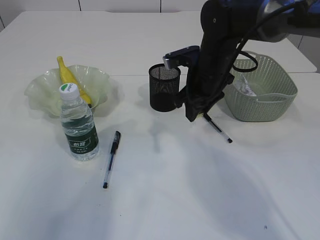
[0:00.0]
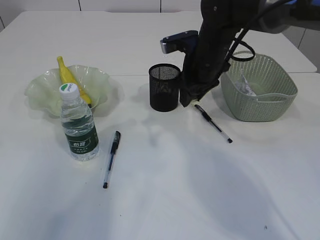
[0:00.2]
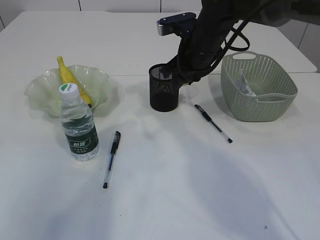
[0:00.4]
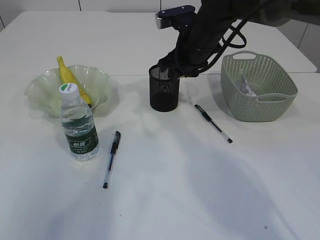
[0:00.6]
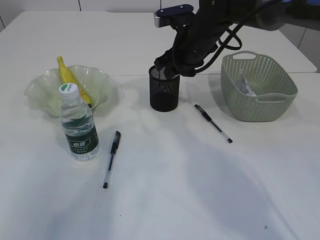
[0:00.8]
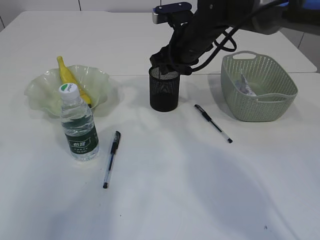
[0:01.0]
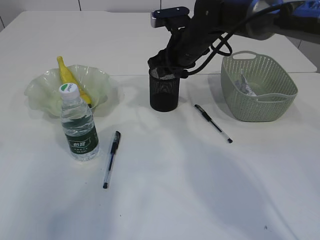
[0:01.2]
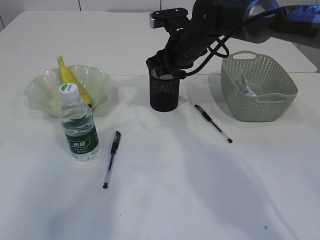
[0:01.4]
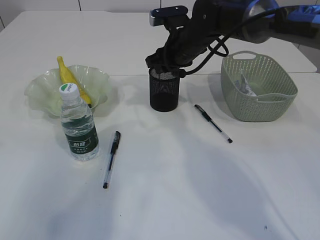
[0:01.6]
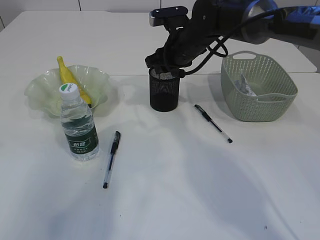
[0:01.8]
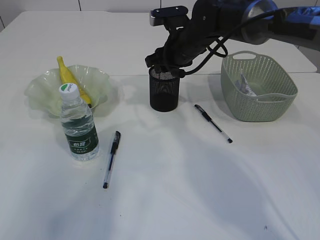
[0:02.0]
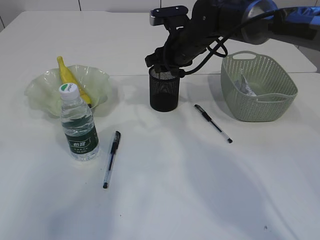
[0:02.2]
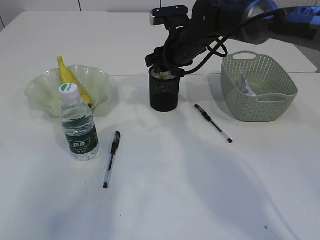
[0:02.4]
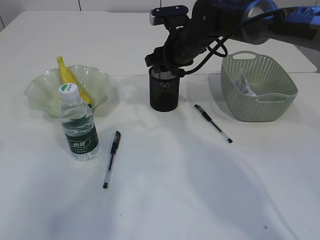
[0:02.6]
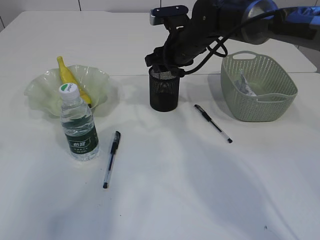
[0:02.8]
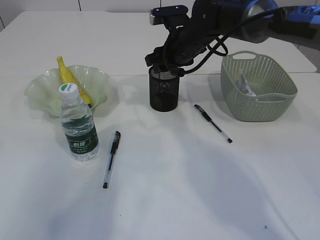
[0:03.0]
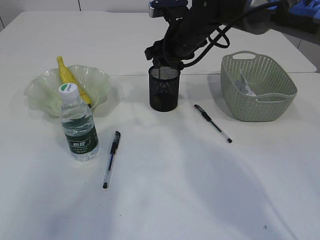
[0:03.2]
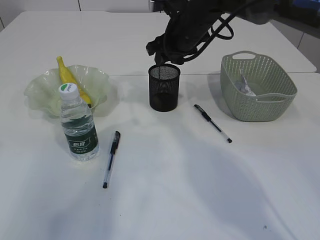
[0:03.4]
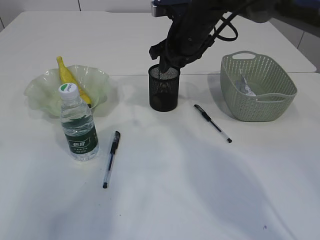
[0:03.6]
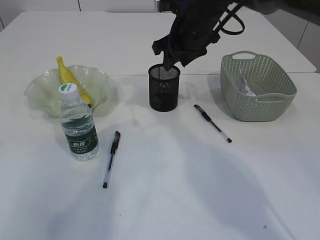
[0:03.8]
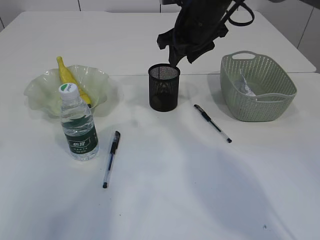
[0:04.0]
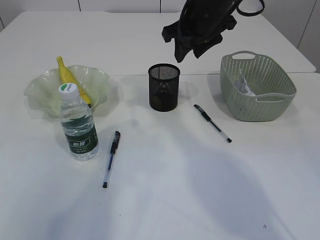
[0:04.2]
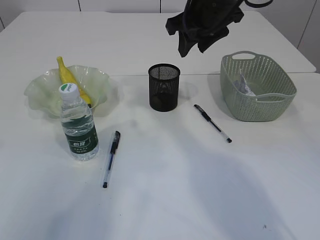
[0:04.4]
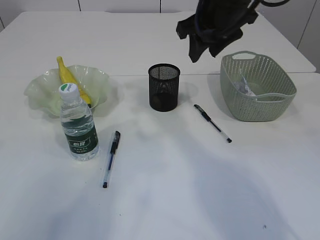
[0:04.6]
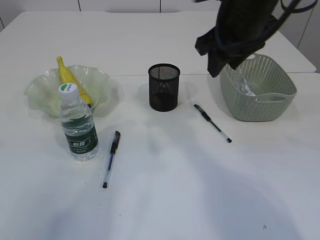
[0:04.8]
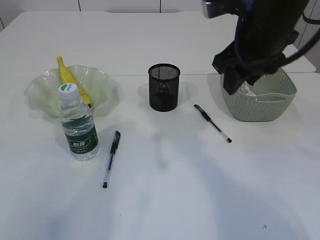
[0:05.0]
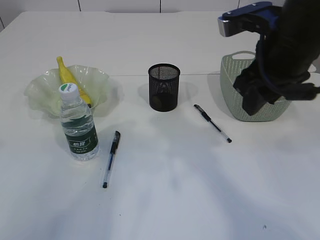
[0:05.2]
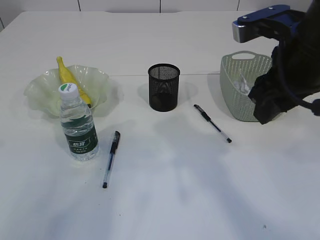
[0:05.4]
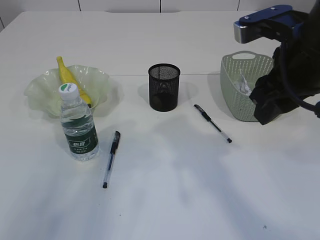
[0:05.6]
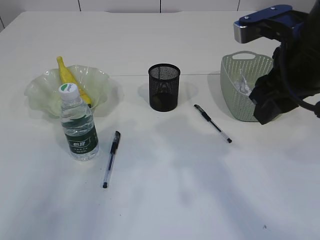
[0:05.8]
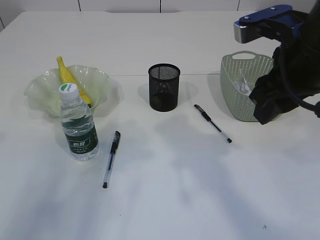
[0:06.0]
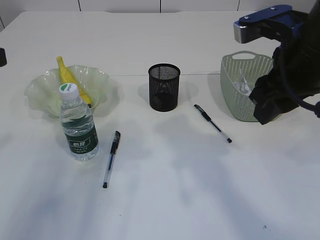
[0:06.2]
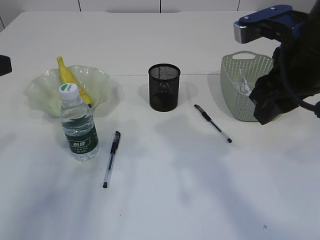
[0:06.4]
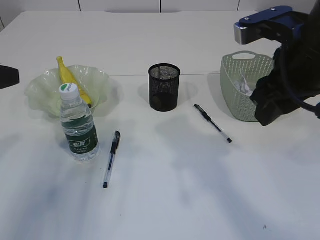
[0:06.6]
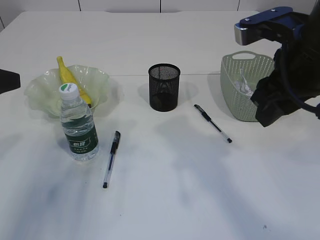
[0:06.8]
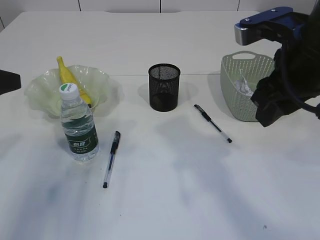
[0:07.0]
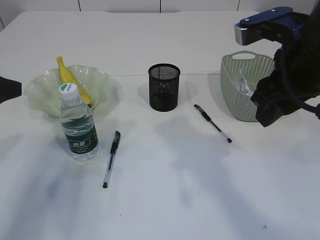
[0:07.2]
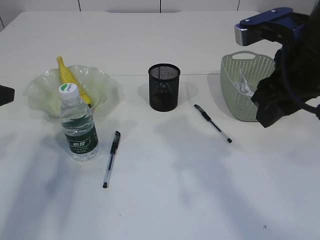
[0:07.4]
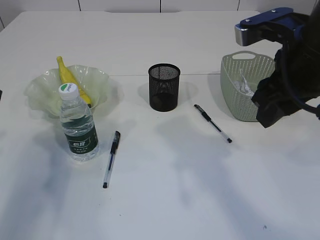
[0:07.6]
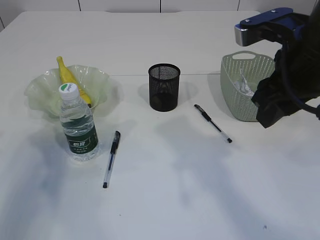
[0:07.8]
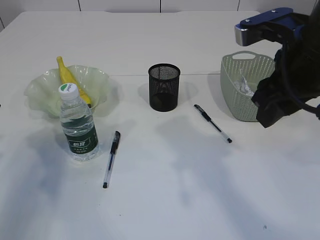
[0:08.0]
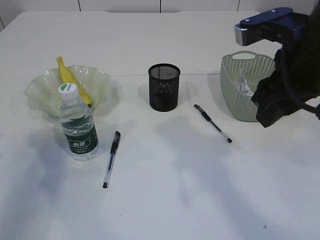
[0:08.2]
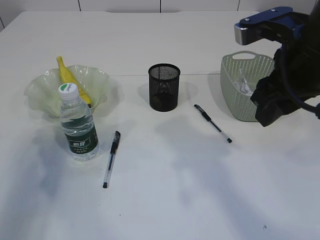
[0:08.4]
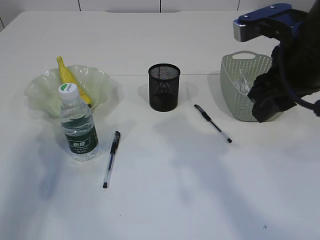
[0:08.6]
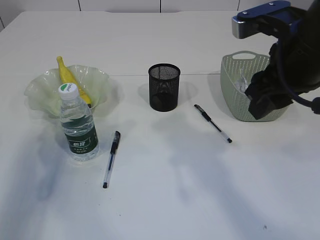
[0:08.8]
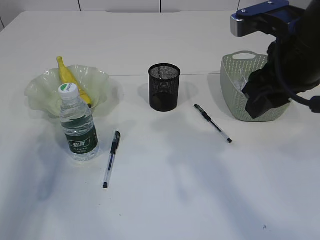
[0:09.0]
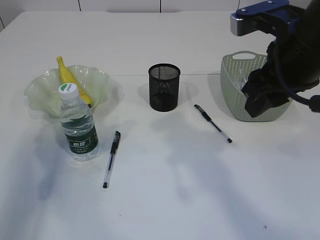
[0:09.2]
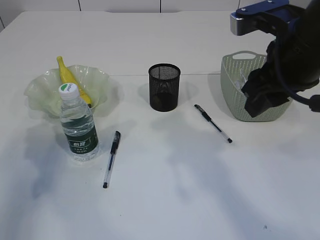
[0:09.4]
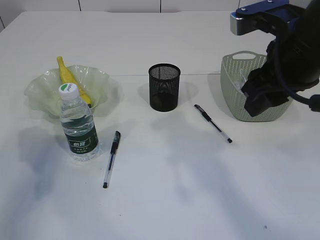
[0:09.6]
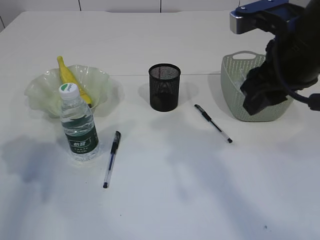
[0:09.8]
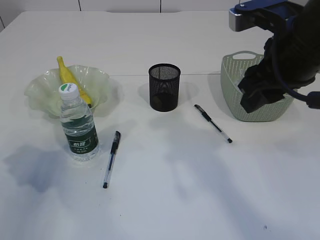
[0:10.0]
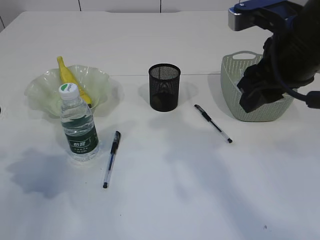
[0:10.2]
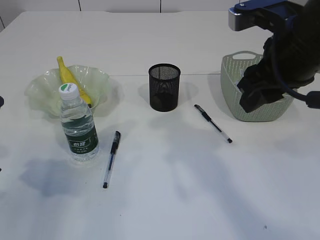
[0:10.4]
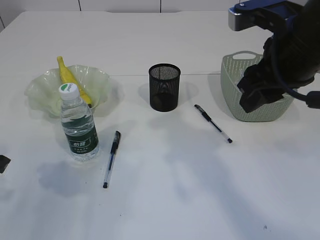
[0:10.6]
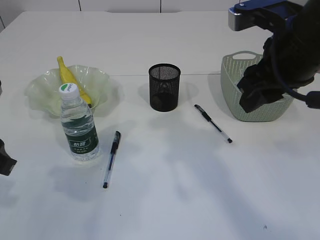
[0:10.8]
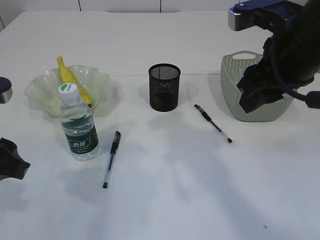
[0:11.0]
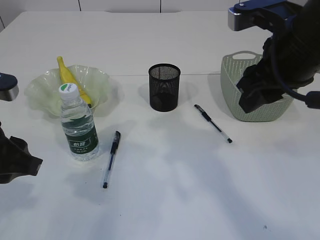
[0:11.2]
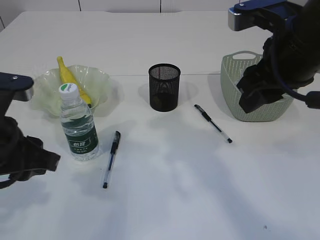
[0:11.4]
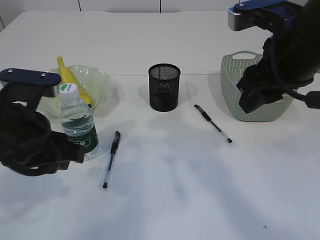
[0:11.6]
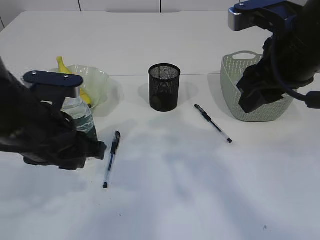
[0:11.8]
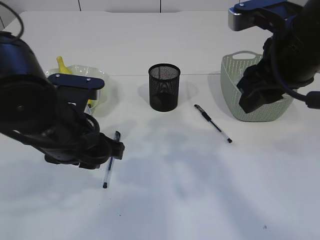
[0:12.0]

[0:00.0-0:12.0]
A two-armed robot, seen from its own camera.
Step, 0:00.0 to 0:04.0: Place the eraser into the pen holder.
0:00.0 to 0:01.6: The right gripper is displaced forward by approximately 5 cm.
0:01.6 to 0:03.0: The two grippers keep their place.
0:03.0 to 0:04.4: The right gripper heads upward and backward, covering about 10 cm.
0:04.4 to 0:06.0: The right gripper travels backward and to the right by approximately 15 cm.
0:06.0 to 0:07.6: The left gripper moves downward and forward, some 10 cm.
0:09.0 to 0:10.4: The left gripper shifts by about 5 cm.
0:10.4 to 0:12.0: The left gripper shifts some 15 cm to the right.

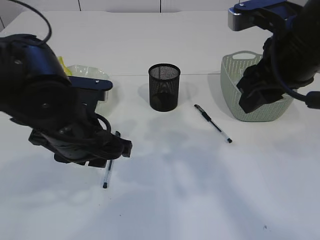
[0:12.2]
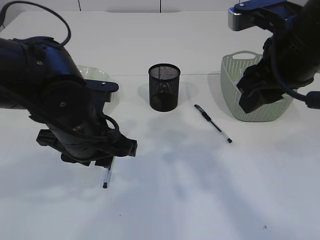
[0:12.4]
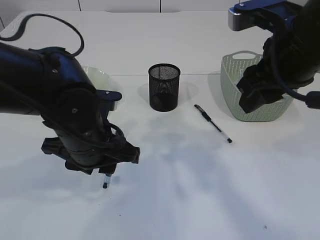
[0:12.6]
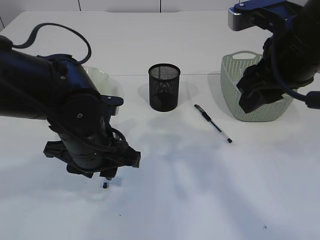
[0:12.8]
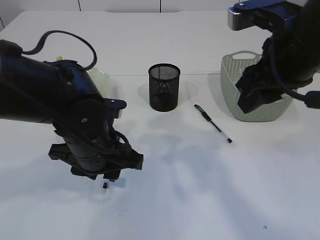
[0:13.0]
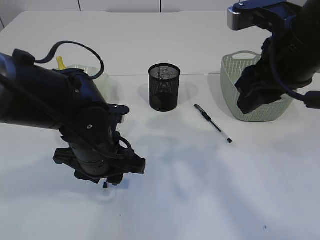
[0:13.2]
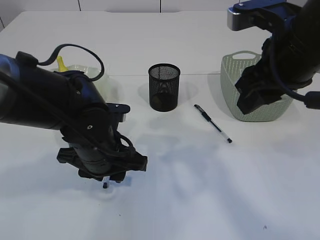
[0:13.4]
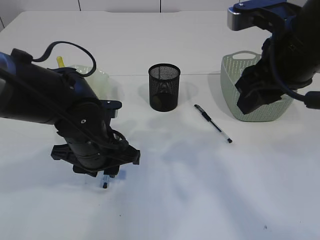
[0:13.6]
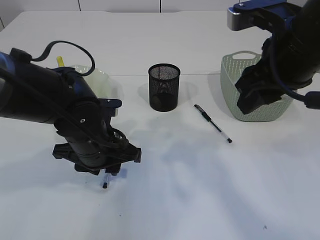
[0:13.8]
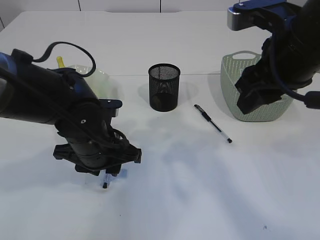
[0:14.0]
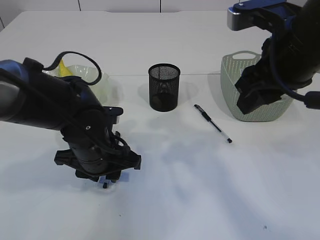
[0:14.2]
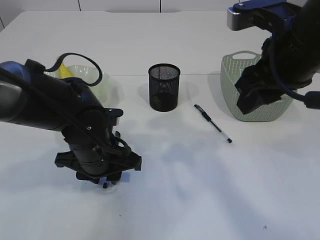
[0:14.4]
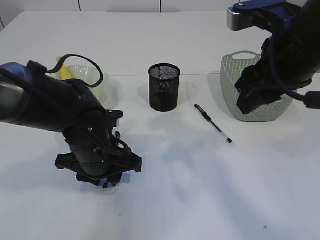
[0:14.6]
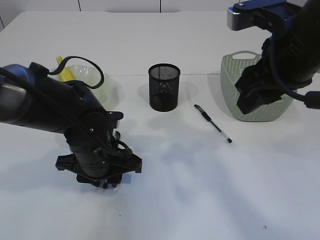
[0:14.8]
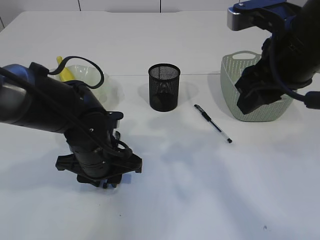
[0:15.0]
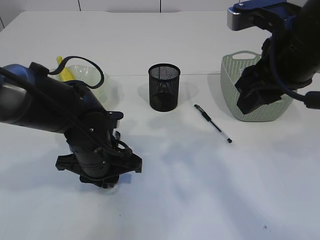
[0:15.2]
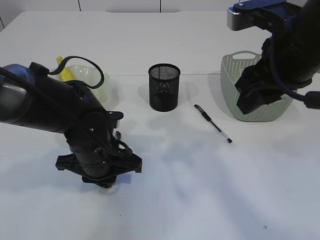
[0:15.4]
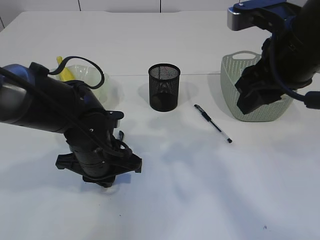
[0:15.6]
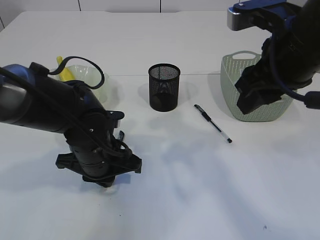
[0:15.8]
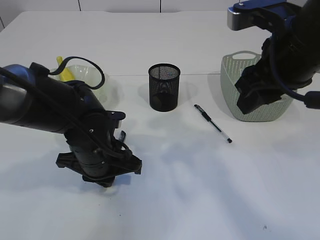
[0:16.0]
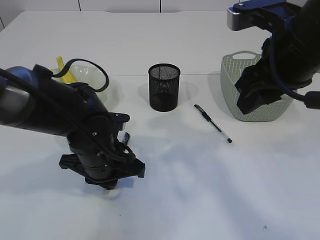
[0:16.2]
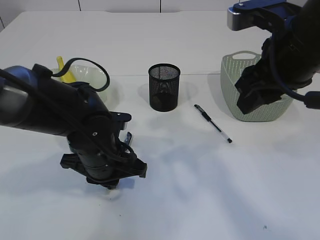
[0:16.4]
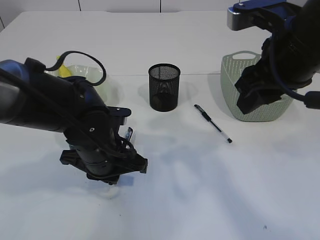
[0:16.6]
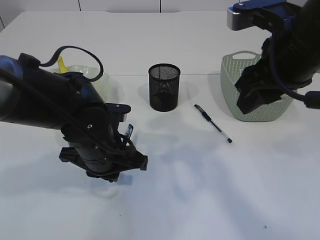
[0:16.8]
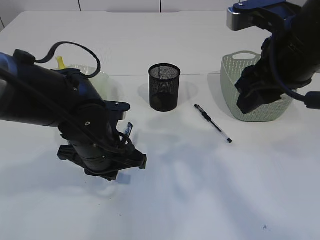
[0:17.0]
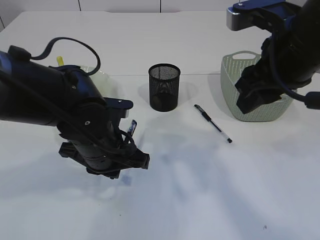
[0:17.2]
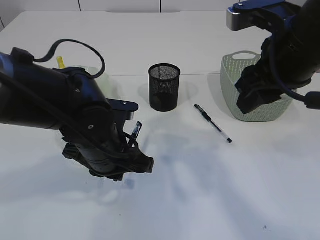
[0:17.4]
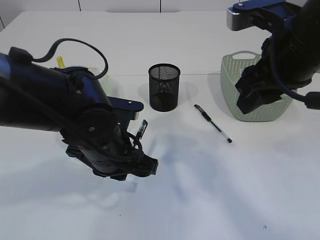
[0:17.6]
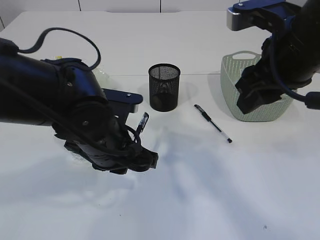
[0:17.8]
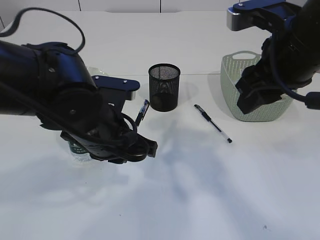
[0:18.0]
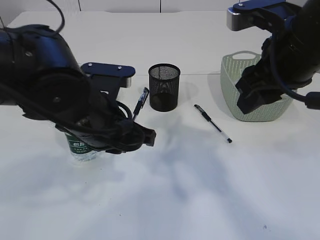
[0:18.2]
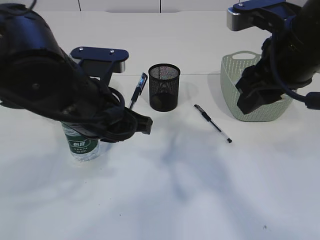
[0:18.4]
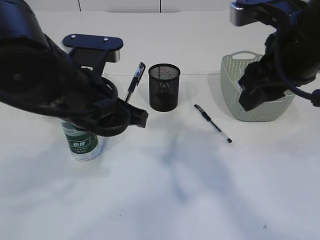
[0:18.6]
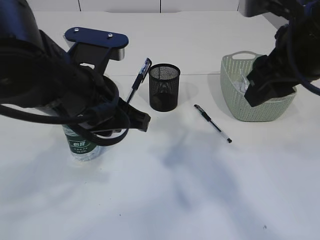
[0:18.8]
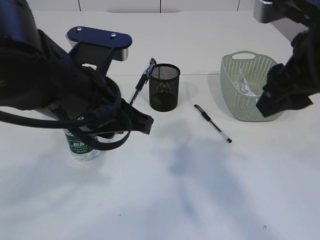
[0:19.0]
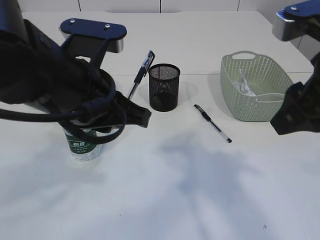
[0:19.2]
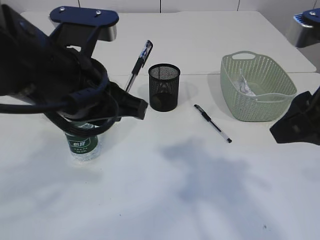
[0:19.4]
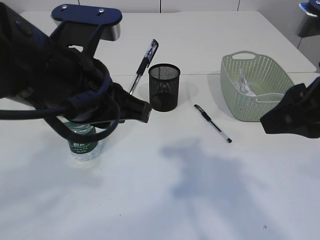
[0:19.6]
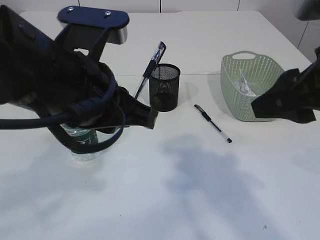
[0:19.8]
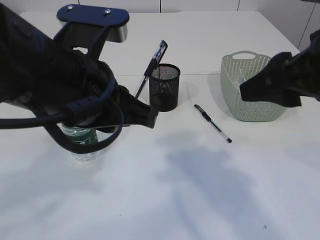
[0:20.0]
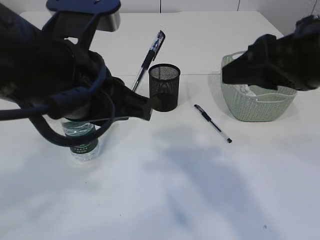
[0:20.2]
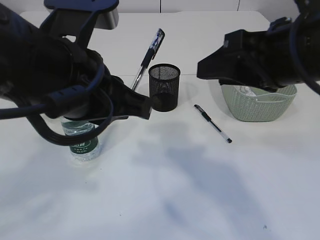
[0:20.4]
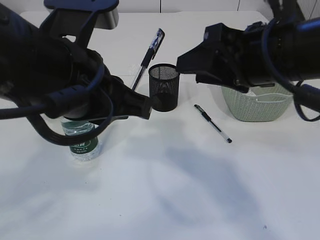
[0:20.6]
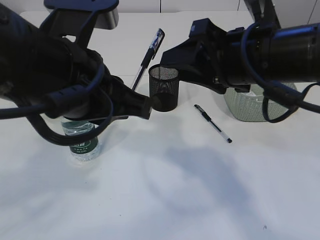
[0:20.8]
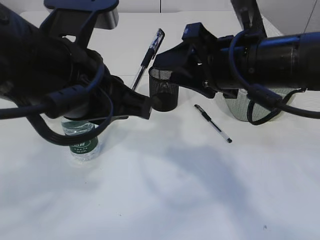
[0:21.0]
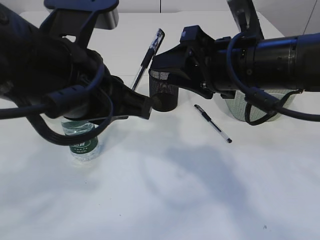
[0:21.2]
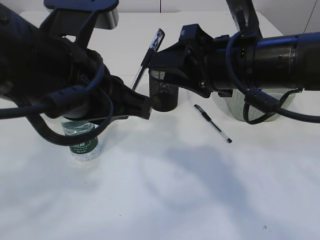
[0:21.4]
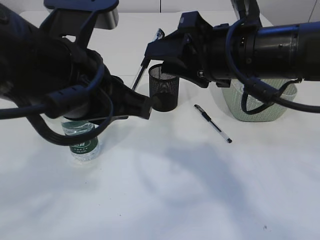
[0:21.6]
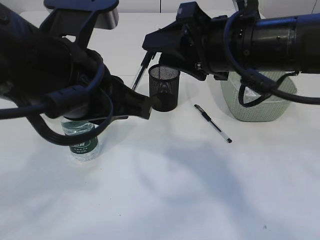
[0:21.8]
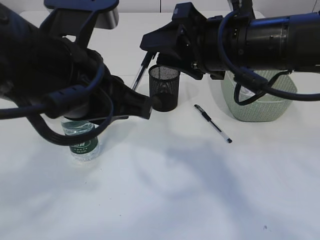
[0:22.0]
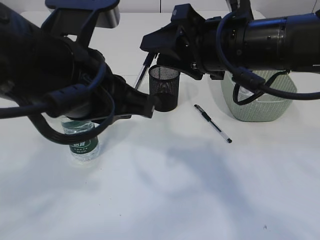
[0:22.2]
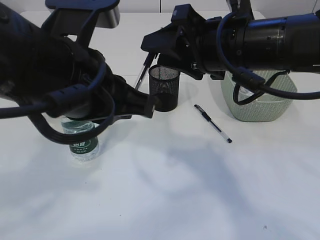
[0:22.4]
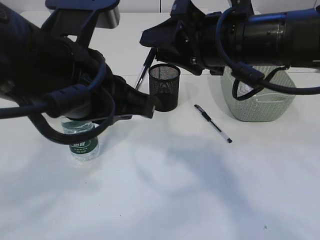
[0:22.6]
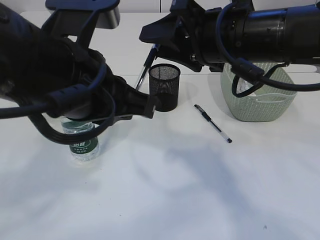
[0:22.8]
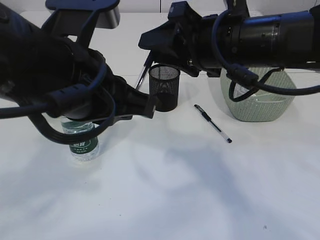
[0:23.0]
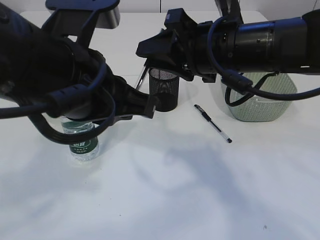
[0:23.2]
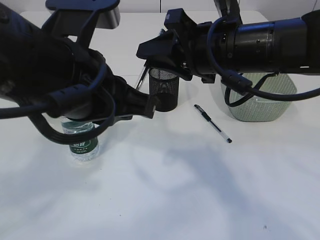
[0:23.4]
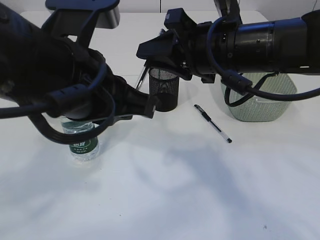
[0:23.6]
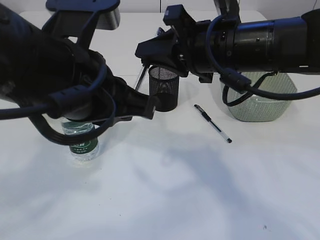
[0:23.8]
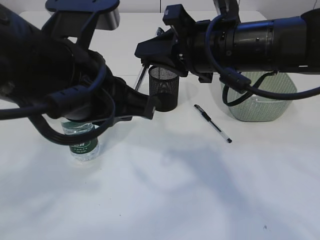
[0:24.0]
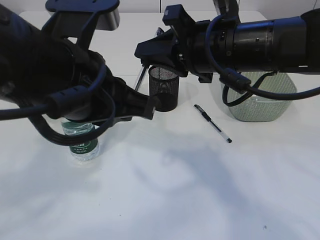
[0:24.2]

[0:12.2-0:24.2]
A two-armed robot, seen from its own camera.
Step, 0:12.2 to 0:17.4: Pick up the pen with left arm.
0:12.2 to 0:13.8: The left gripper is displaced downward by some 5 cm.
0:13.8 to 0:16.6: The grippers stay close to where they were, moving slightly.
0:16.6 to 0:18.2: The left gripper heads upward, covering approximately 10 cm.
0:18.2 to 0:19.8: The left gripper moves upward and backward, some 10 cm, while the right gripper moves backward, about 10 cm.
0:19.8 to 0:21.2: The right gripper shifts approximately 10 cm forward and to the left.
0:21.2 to 0:22.6: The grippers make only small movements.
0:22.6 to 0:24.2: The right gripper closes.
